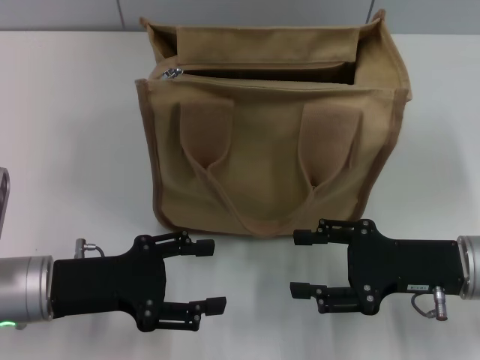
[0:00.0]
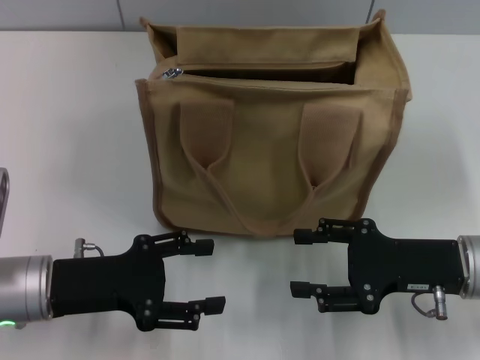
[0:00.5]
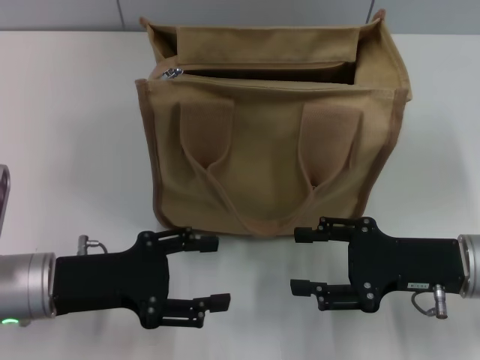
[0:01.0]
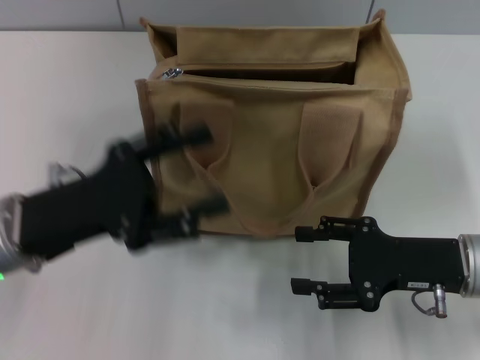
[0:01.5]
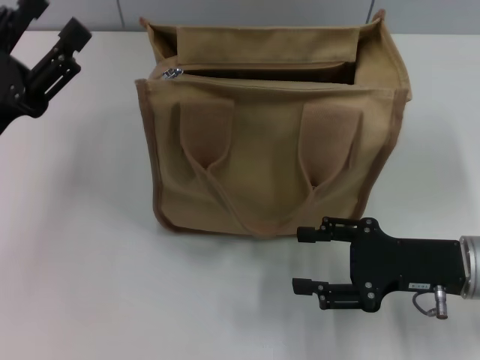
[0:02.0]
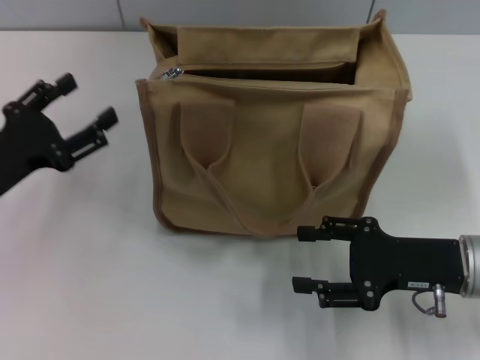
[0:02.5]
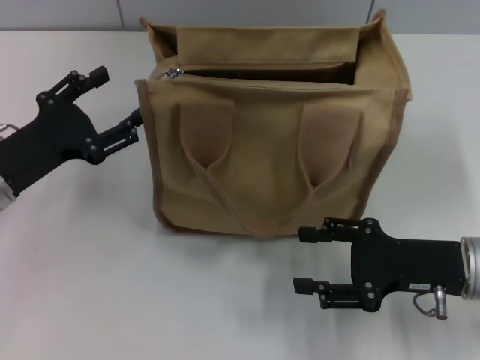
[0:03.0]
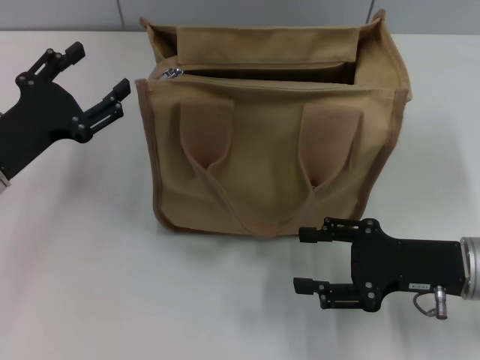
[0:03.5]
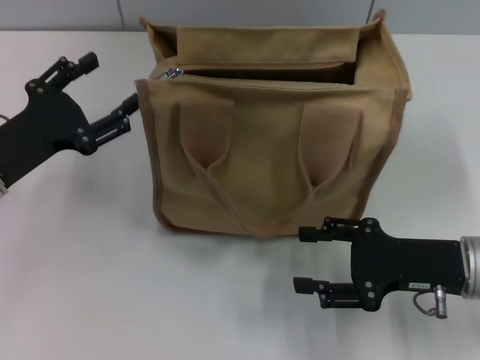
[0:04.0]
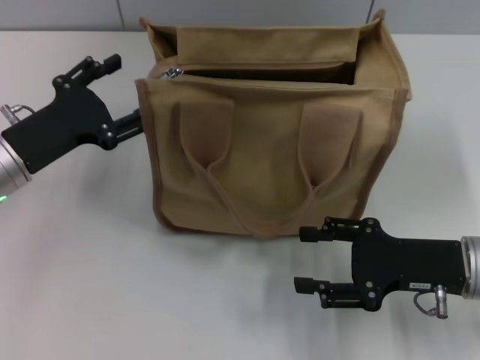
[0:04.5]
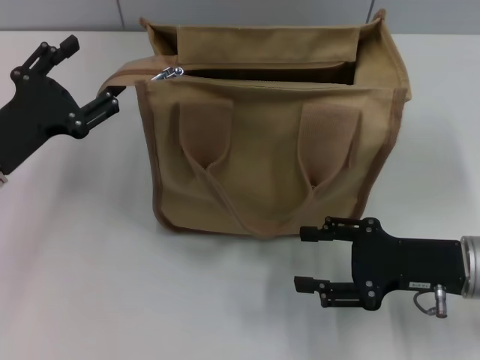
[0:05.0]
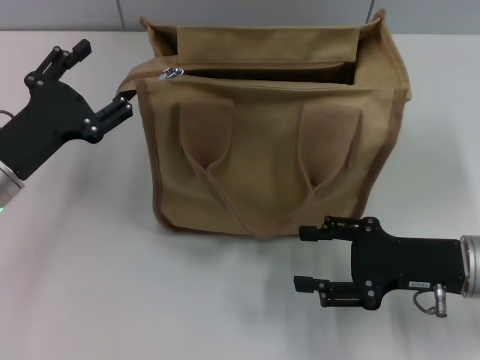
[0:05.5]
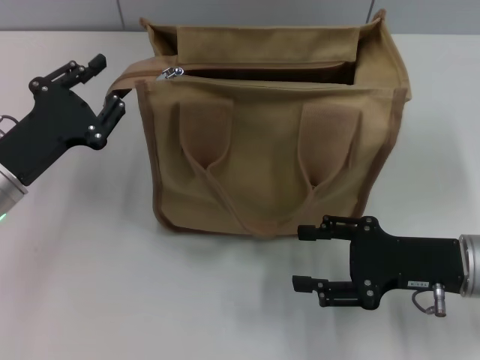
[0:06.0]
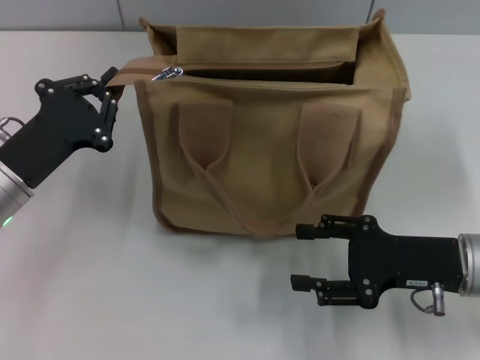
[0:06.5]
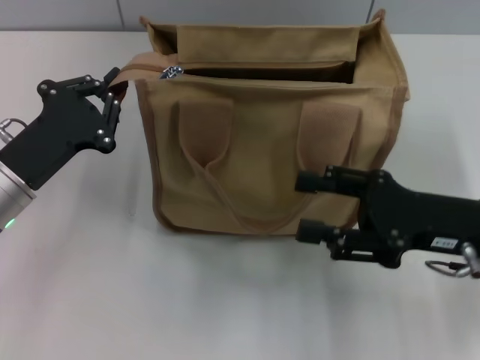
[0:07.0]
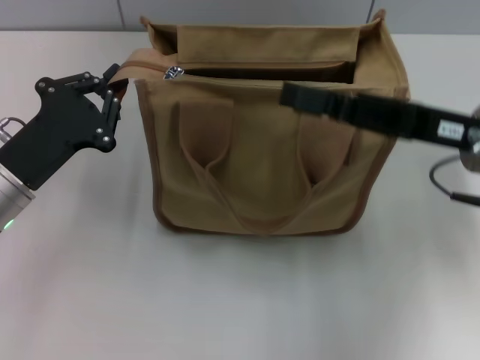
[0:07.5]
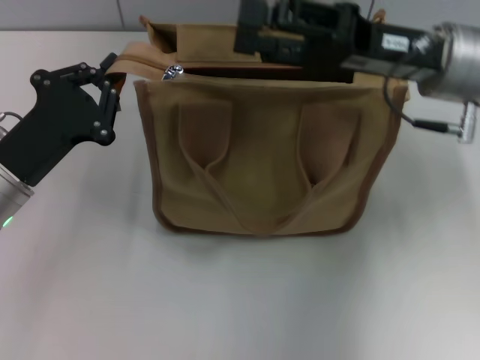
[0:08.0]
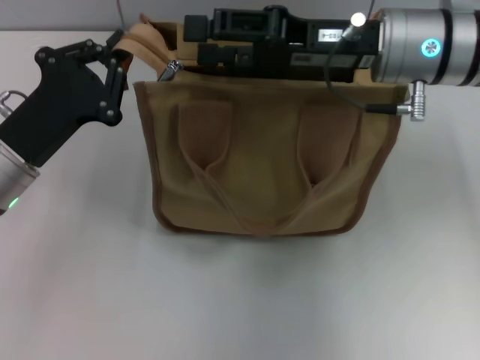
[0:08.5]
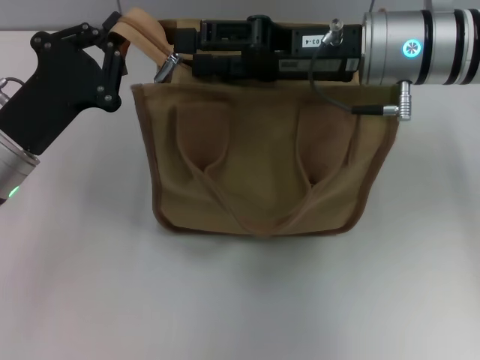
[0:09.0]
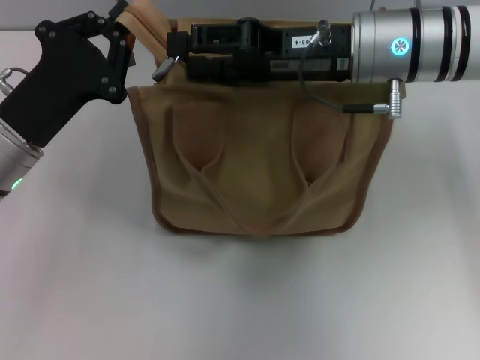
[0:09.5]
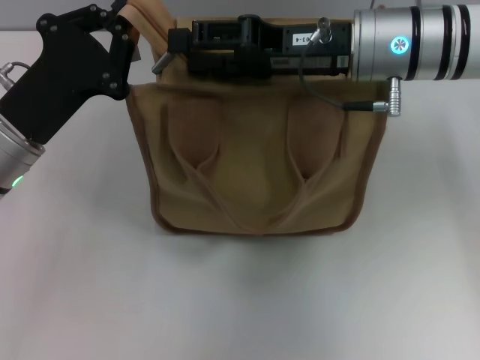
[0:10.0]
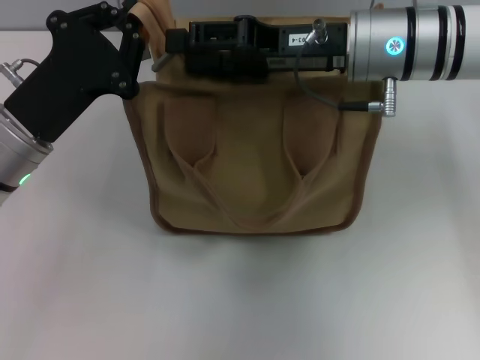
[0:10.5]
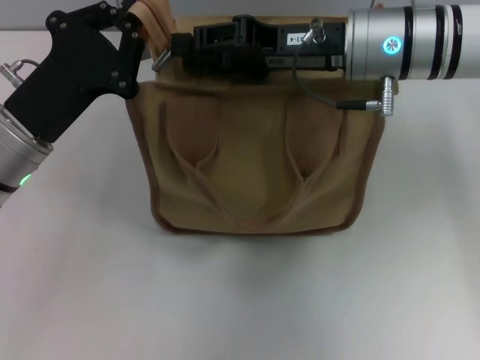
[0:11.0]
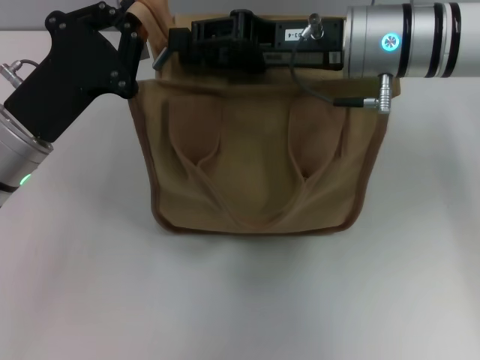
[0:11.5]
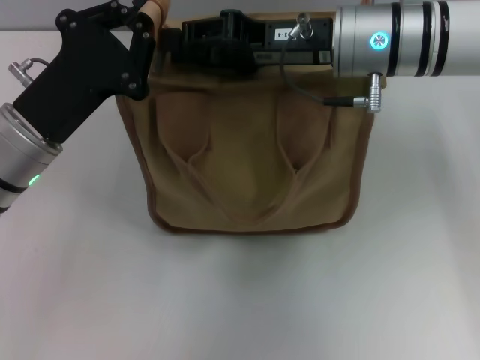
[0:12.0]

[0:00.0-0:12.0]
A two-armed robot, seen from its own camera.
0:00.0 to 0:02.0: The left gripper shifts roughly 5 cm upward.
0:04.0 to 0:06.0: The grippers move only a little.
0:06.0 to 0:08.0: The right gripper goes some 20 cm upward, forward and to the left; the left gripper closes its fingers.
0:08.0 to 0:10.0: The right gripper moves to the left, roughly 5 cm.
0:10.0 to 0:12.0: The right gripper closes up.

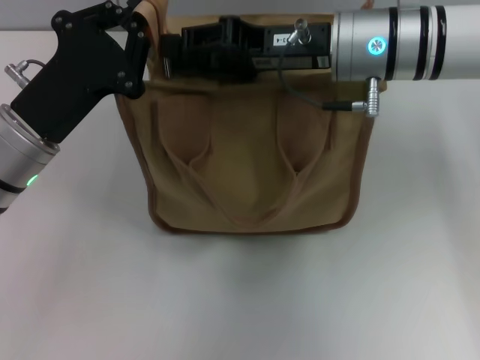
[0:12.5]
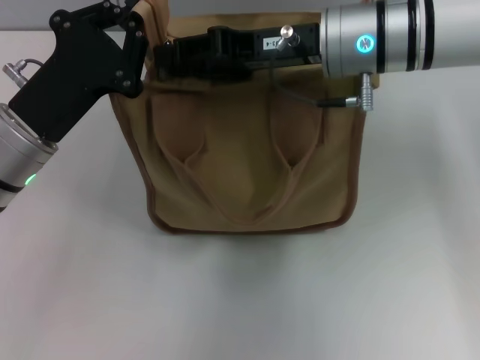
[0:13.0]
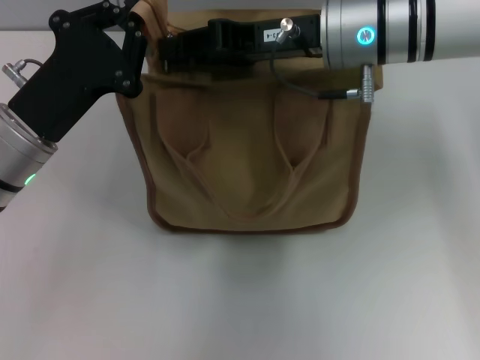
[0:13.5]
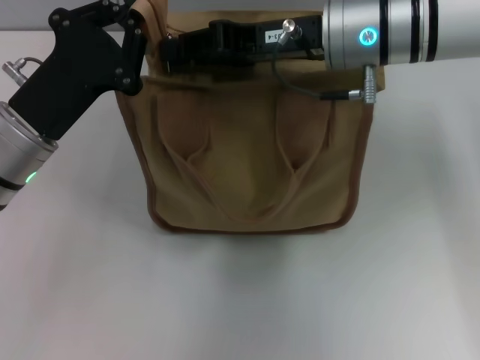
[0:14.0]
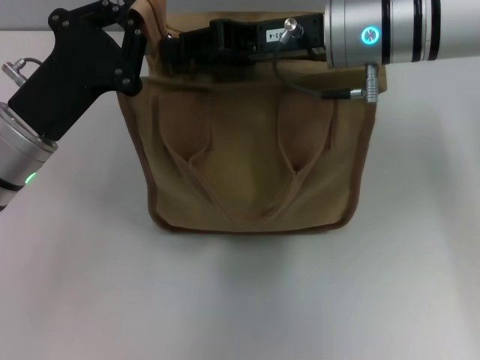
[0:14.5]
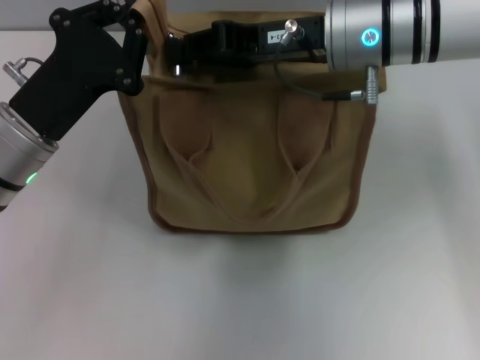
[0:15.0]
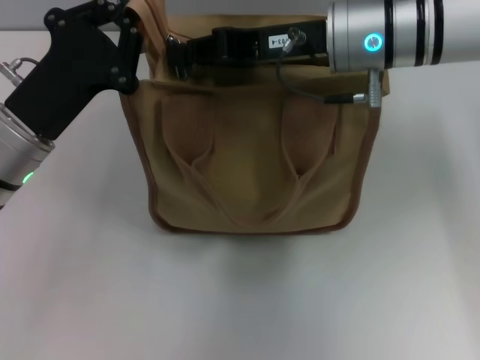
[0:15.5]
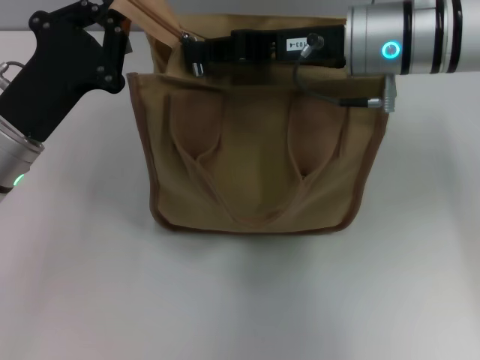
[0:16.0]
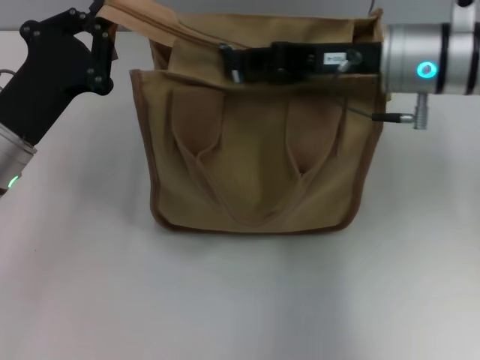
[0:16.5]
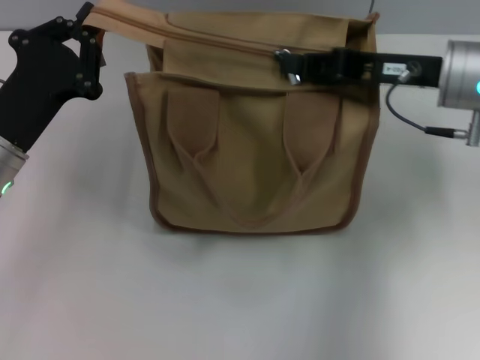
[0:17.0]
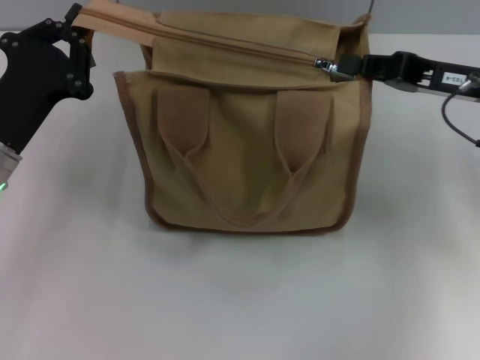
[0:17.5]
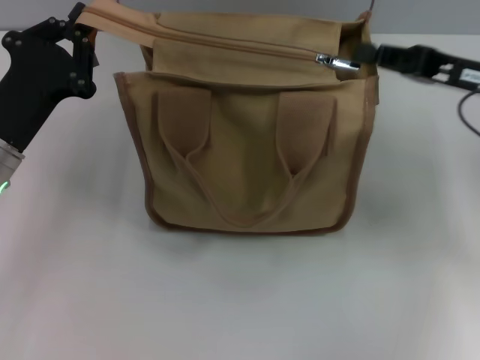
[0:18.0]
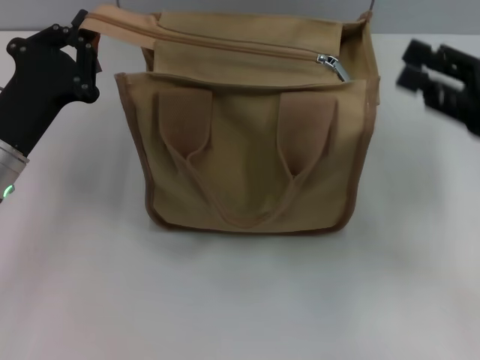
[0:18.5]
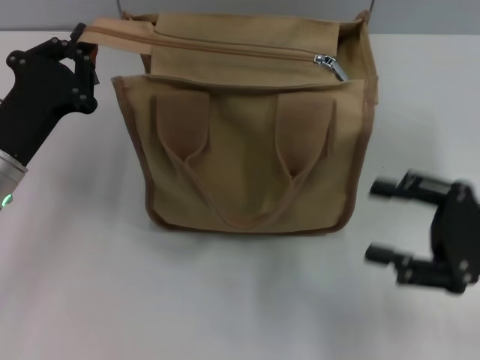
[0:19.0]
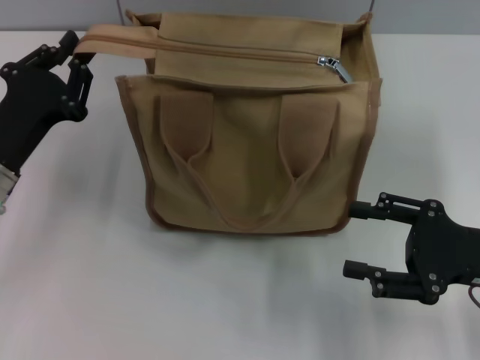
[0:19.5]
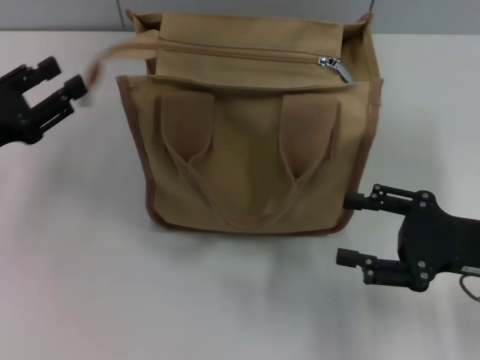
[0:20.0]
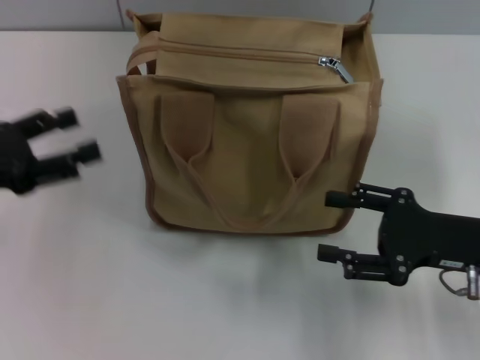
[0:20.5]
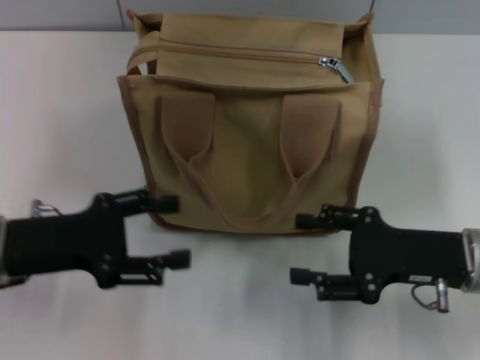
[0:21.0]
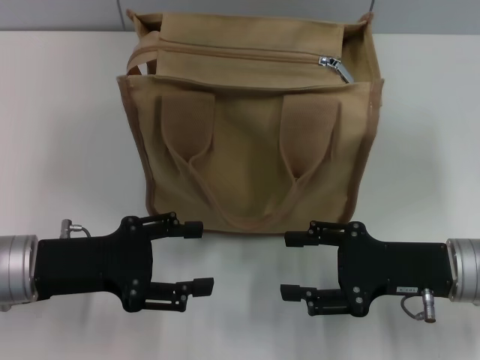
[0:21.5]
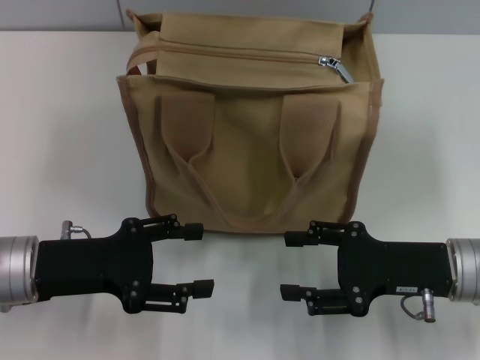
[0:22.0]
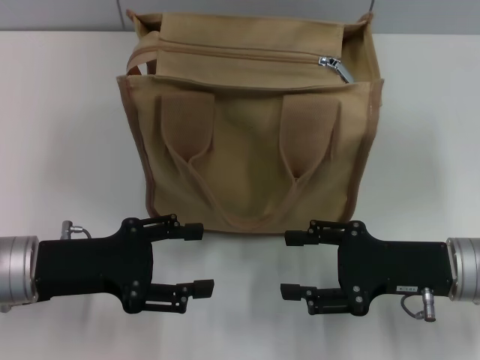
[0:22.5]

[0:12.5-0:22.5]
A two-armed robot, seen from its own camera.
Step, 0:12.5 to 0:17.5: Pull up the zipper with your right hand.
Step, 0:18.5 to 0:20.0: Grab the zipper with your left hand.
0:12.5 to 0:14.5: The grippers make only small movements.
0:14.5 to 0:16.5: The right gripper heads to the right, covering about 5 cm.
0:16.5 to 0:18.5: The right gripper moves to the right and backward, roughly 15 cm, and opens up.
0:18.5 to 0:20.5: The right gripper is displaced downward by approximately 5 cm, and opens, while the left gripper travels to the left by some 10 cm, and opens its fingers.
0:20.5 to 0:22.5: The left gripper shifts approximately 10 cm to the right.

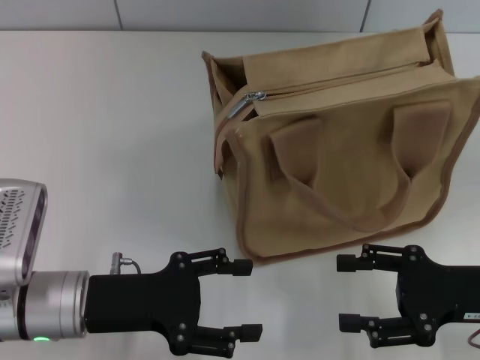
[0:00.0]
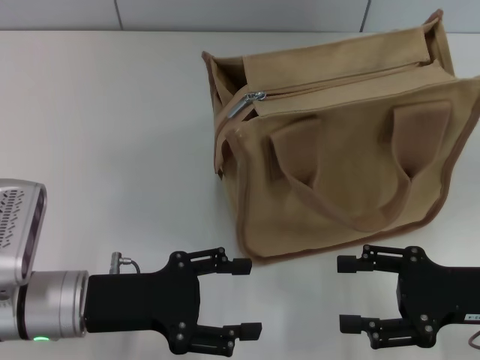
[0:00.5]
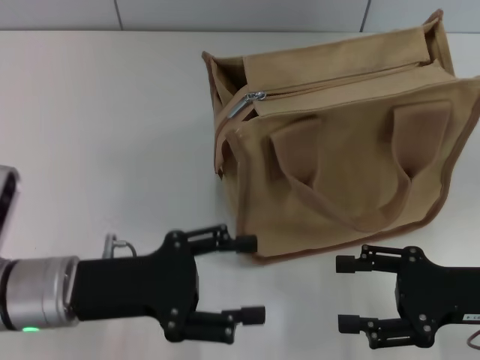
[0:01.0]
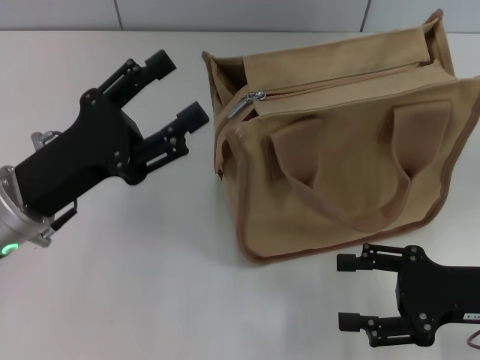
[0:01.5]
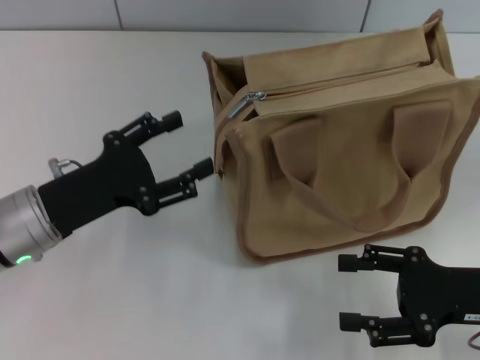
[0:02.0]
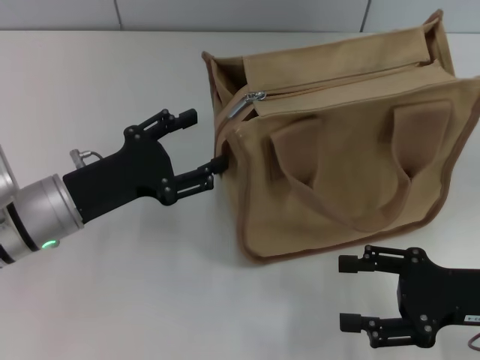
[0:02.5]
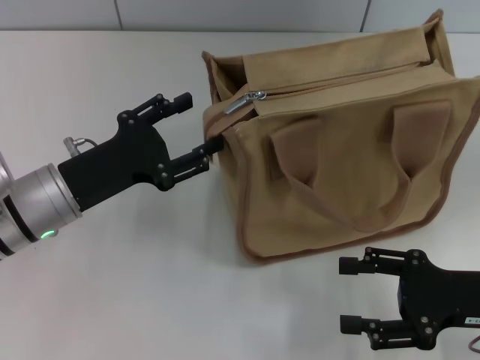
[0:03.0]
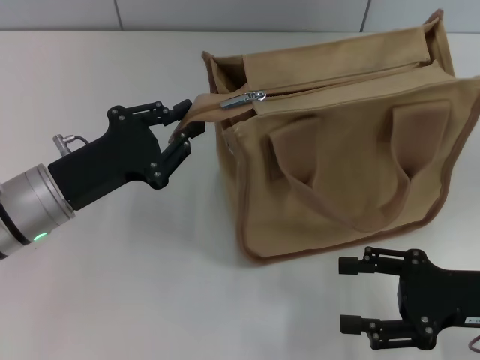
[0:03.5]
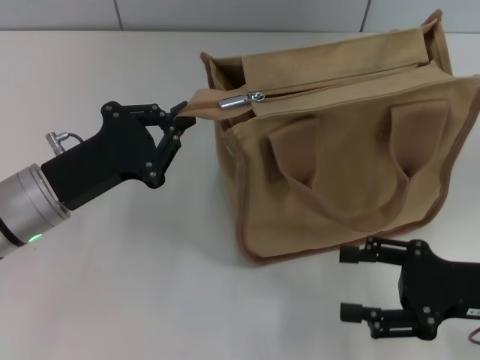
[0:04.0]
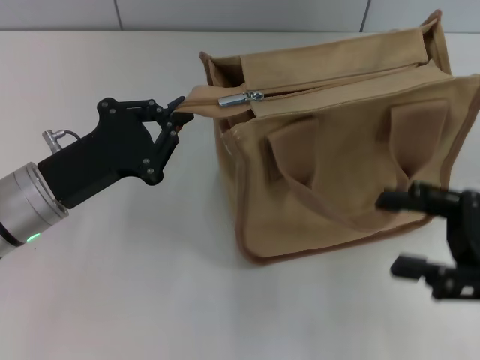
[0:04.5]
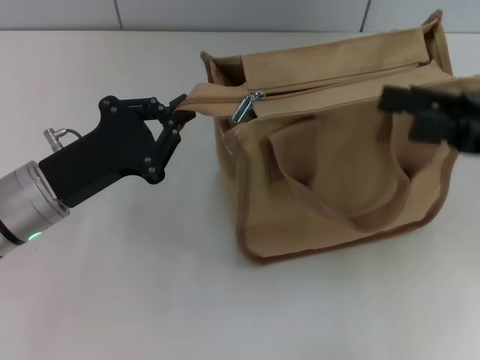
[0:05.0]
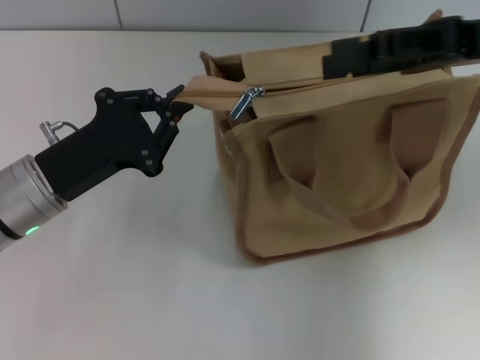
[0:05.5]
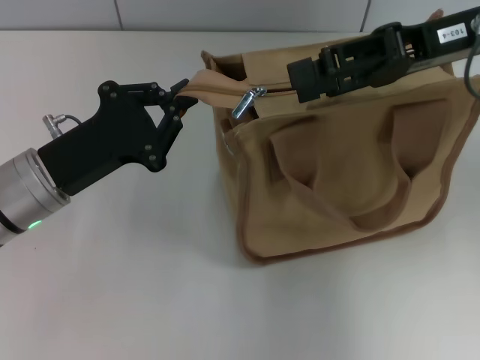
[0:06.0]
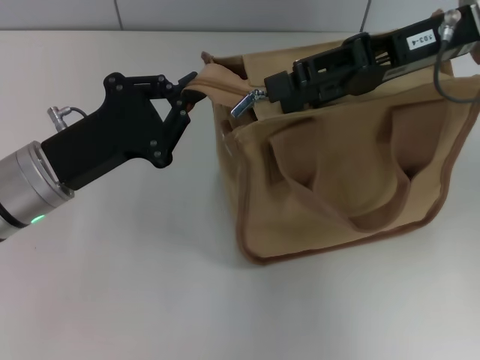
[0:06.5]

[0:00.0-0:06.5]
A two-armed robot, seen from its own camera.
0:00.0 to 0:02.0: The left gripper ends up roughly 5 cm from where it was.
0:02.0 to 0:04.5: The left gripper closes its fingers.
0:04.5 to 0:06.5: The right gripper goes some 20 cm forward, upward and to the left.
